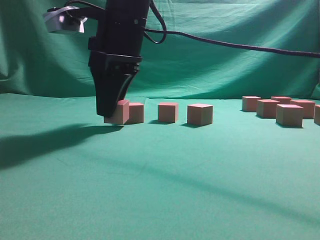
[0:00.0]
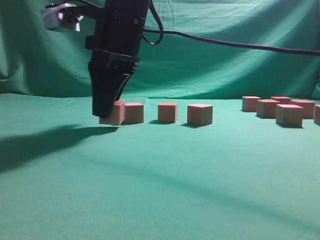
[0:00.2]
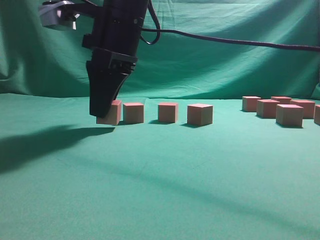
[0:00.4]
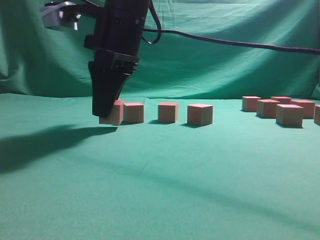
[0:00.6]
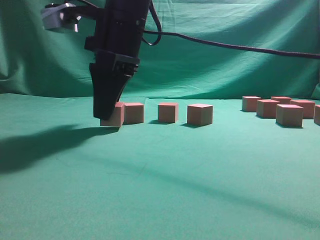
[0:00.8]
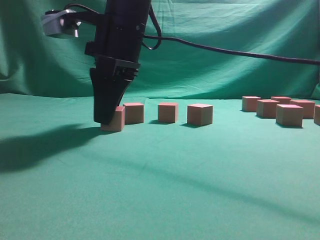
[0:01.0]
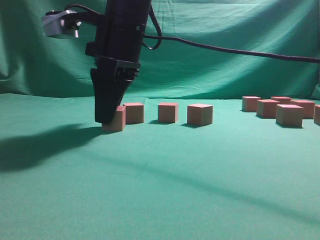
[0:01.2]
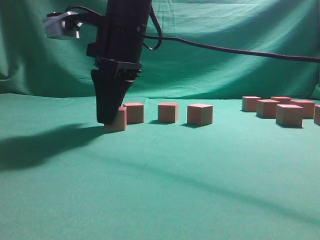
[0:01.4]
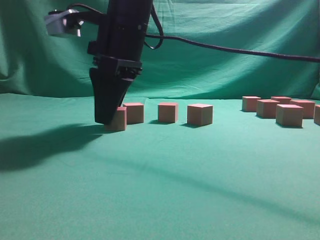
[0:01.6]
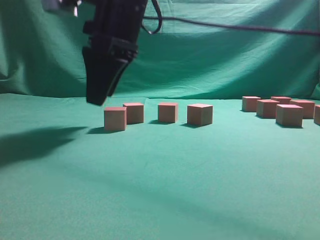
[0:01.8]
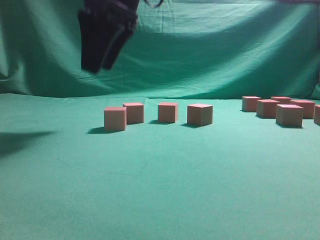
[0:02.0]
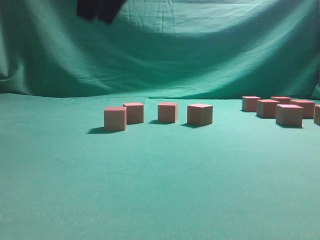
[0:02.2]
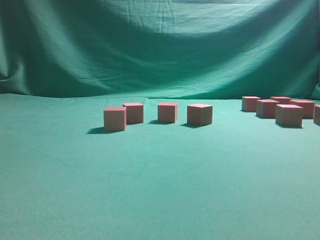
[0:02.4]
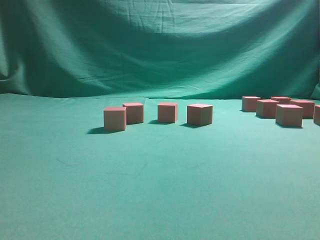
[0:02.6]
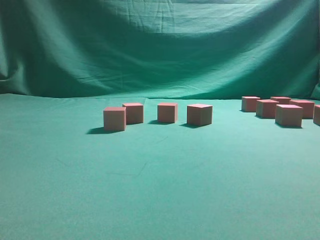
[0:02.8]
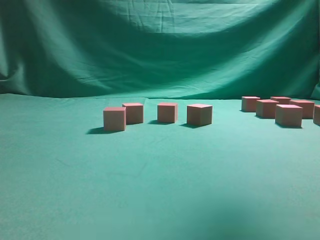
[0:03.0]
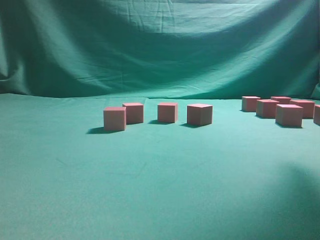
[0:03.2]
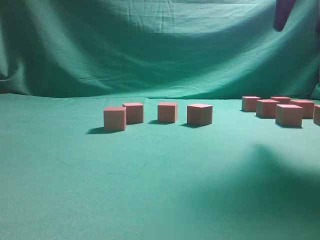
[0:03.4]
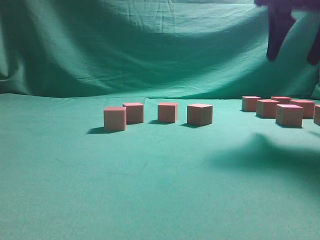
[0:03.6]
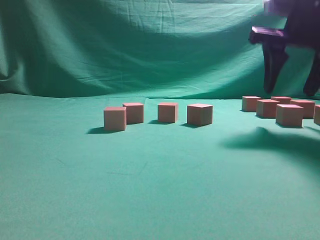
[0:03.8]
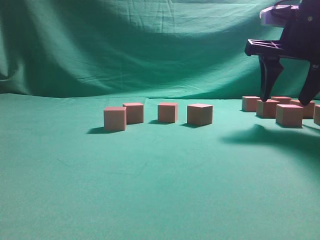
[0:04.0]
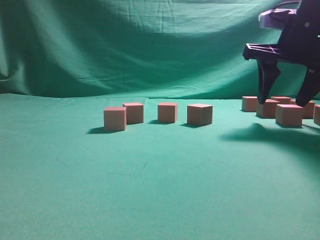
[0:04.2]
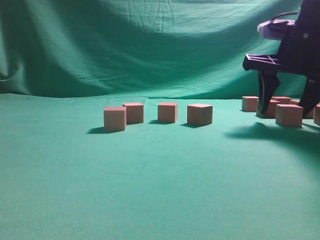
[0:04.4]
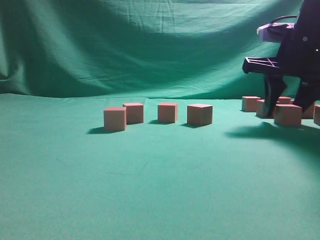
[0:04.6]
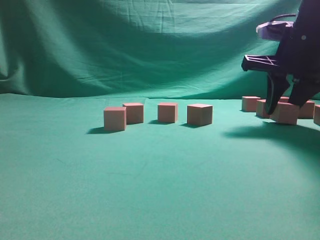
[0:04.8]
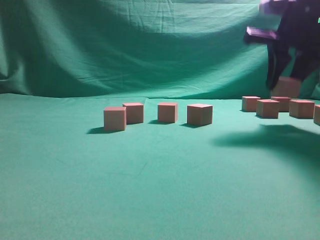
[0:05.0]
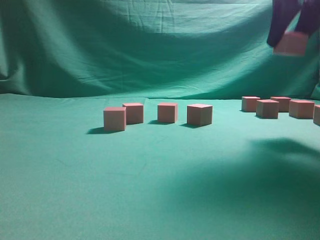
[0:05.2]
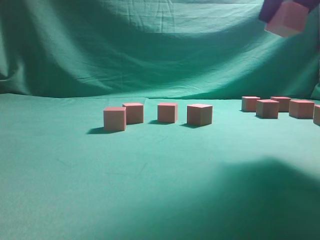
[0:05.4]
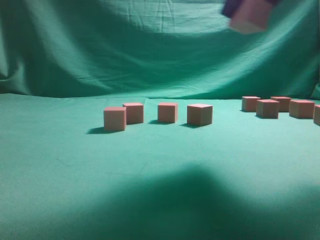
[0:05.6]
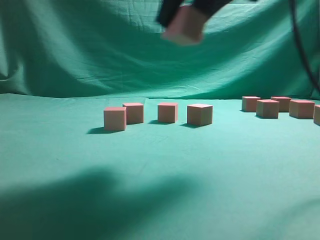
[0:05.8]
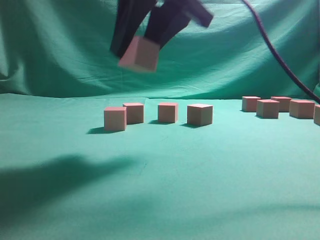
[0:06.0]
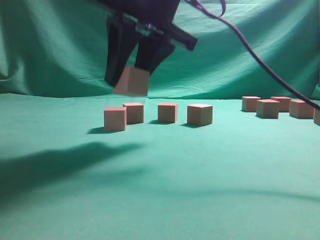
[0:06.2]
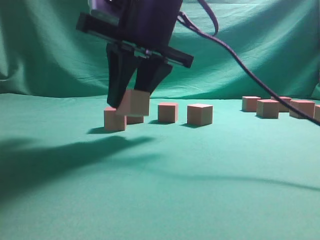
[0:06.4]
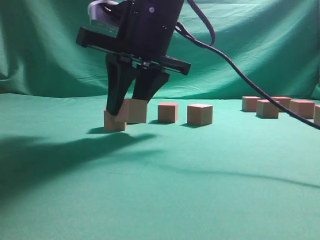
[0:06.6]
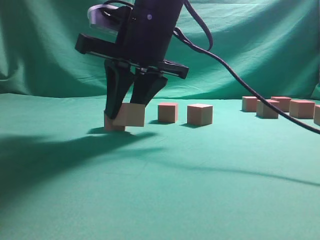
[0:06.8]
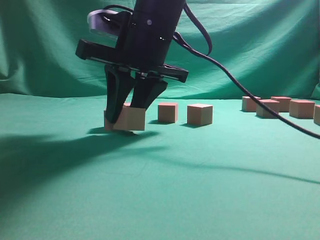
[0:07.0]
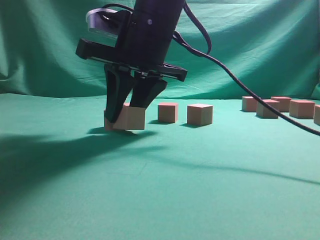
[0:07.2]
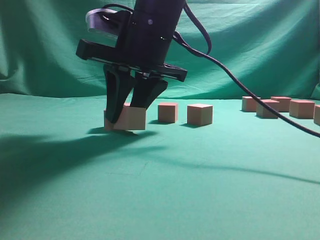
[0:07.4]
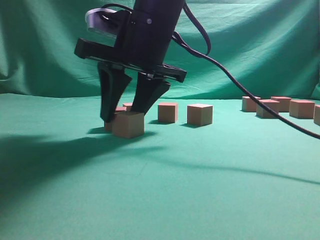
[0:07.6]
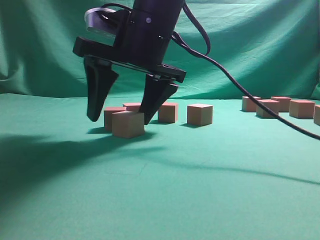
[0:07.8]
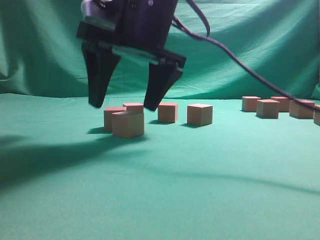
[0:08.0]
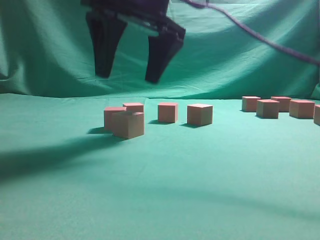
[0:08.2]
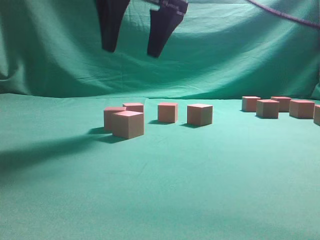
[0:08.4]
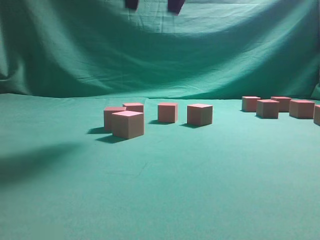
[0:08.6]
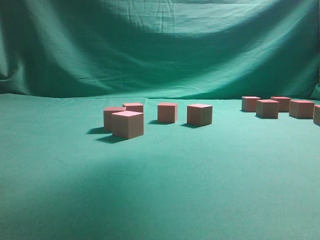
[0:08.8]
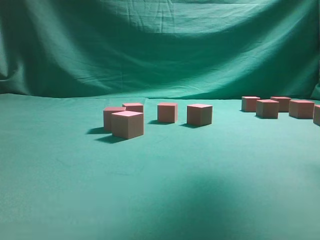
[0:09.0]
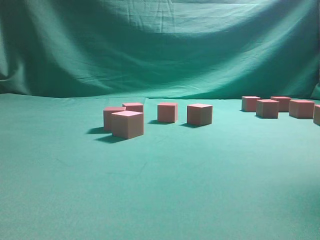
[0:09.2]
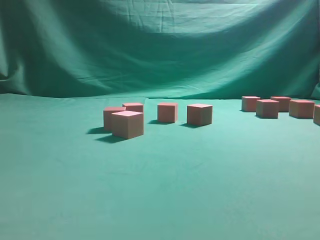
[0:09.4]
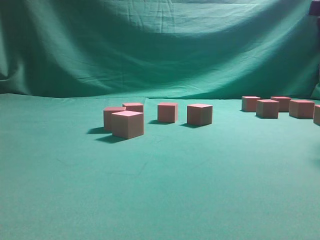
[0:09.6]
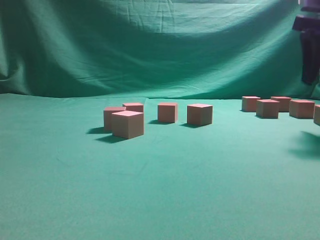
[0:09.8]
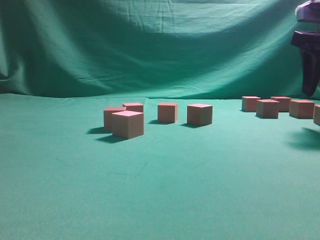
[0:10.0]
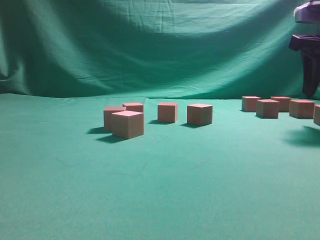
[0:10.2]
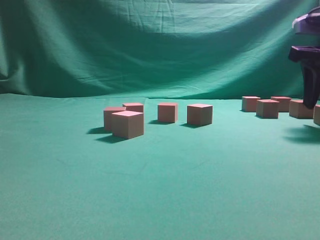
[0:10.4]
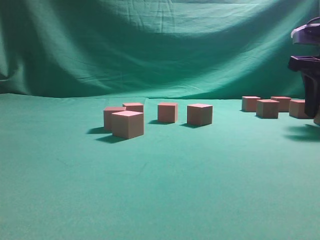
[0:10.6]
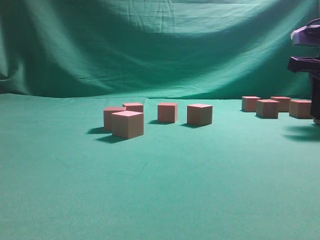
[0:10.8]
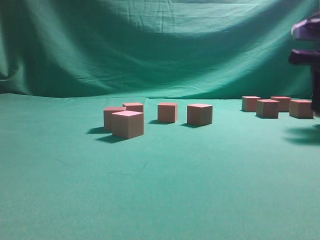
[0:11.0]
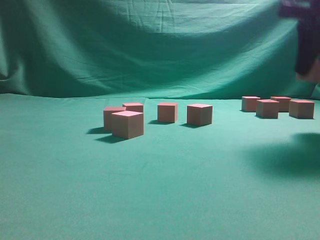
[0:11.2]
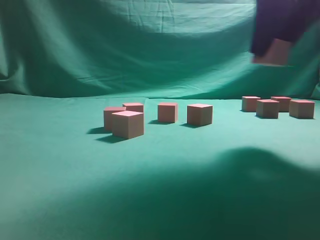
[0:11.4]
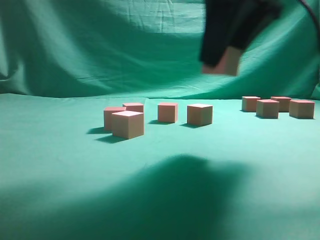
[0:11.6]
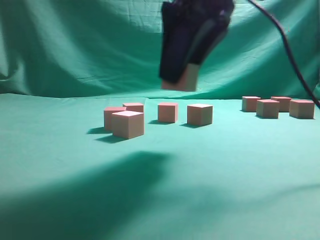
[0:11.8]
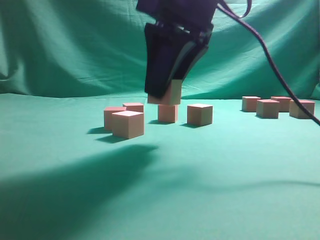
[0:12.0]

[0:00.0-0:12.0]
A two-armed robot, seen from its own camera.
Task of the whole recording: pick up the multiple cubes in two columns one by one and place them in another position on the table.
Step, 0.0 to 2.2 s: Place the block at the correct position to assemble the letter S.
Step, 2.4 to 4.8 s: Pick up the block on the table.
Step, 5.2 to 8.4 s: Place the block at the correct position to assemble the letter S.
Step, 8.6 to 11.2 s: Pick up the block on the table.
0.0 to 1.6 s: There are only small adjustments of the grippers.
1.6 to 3.0 s: The right gripper heads upward and to the right, covering roughly 30 cm.
3.0 to 4.4 s: The right gripper travels downward by about 25 cm.
4.4 to 6.0 s: The right gripper goes about 20 cm to the left, backward and upward, and closes its fingers.
6.0 to 7.6 s: The right gripper moves downward, about 5 cm.
7.6 to 9.0 s: The right gripper travels upward and to the right by about 30 cm, and opens up.
9.0 to 10.4 s: The right gripper shifts approximately 20 cm downward and to the right.
10.4 to 12.0 s: The right gripper is displaced to the left by some 25 cm, and closes.

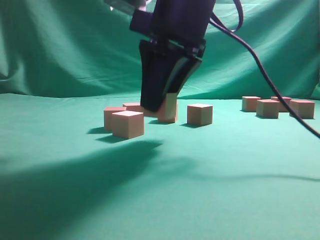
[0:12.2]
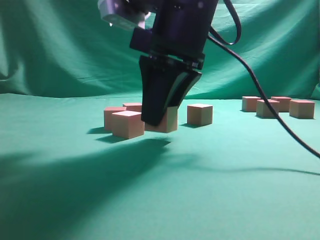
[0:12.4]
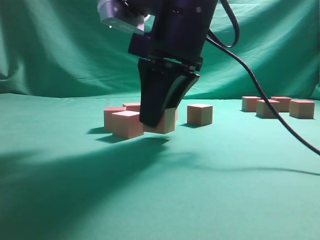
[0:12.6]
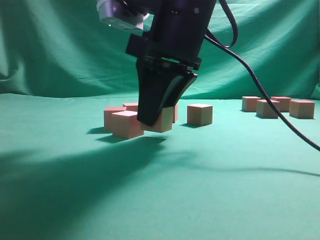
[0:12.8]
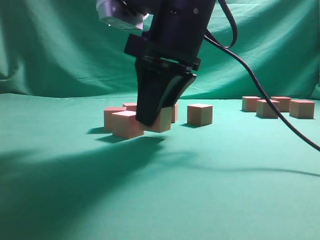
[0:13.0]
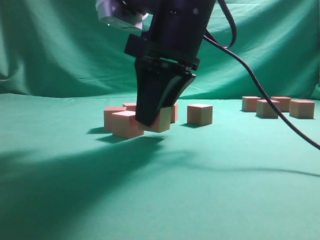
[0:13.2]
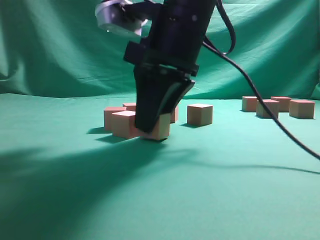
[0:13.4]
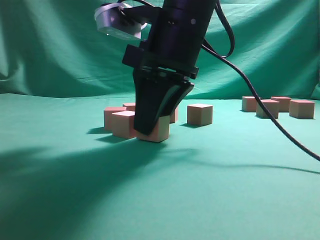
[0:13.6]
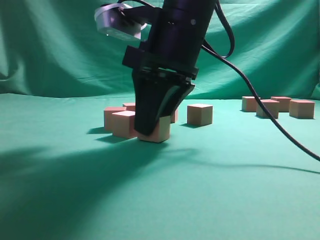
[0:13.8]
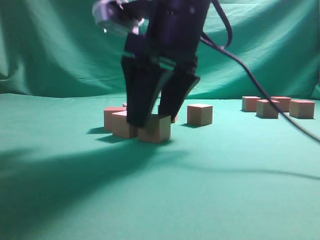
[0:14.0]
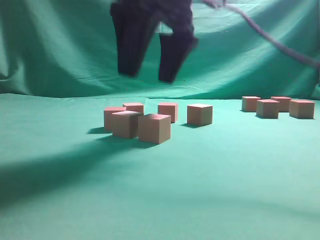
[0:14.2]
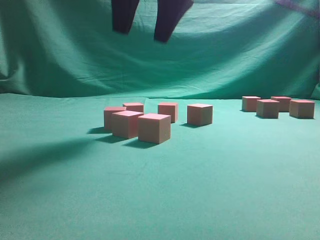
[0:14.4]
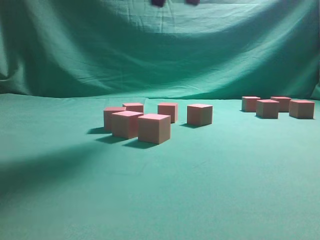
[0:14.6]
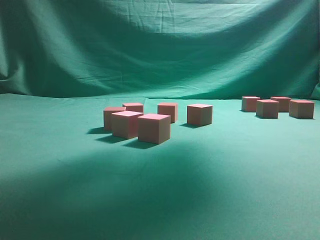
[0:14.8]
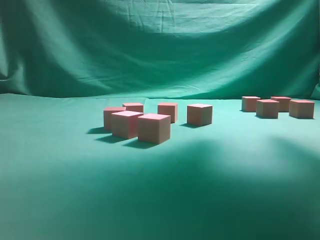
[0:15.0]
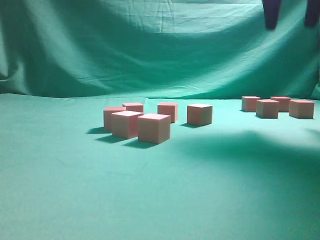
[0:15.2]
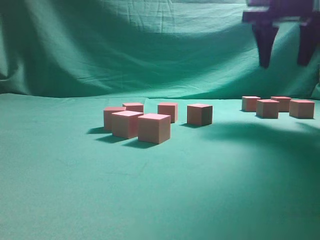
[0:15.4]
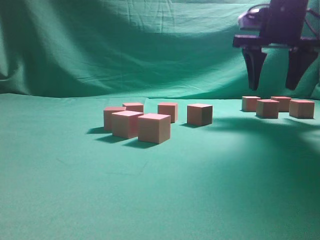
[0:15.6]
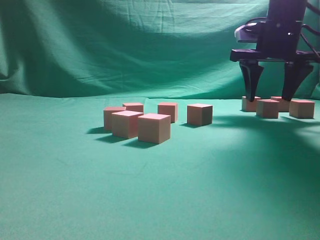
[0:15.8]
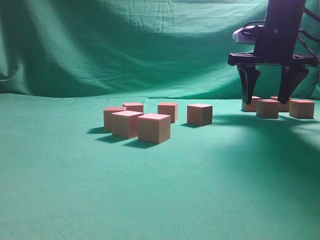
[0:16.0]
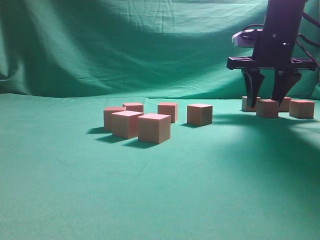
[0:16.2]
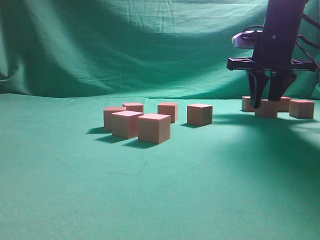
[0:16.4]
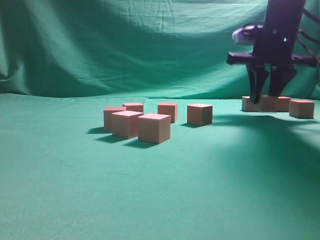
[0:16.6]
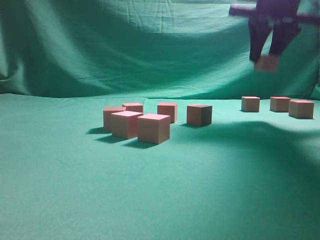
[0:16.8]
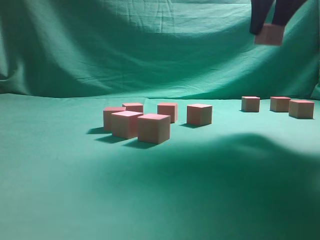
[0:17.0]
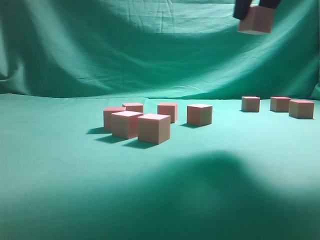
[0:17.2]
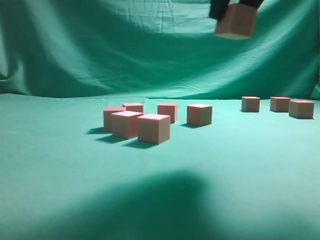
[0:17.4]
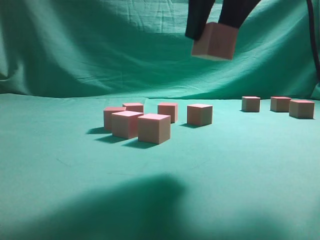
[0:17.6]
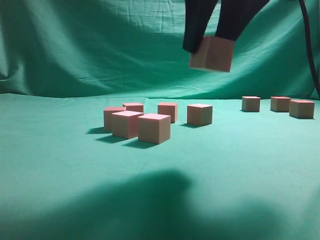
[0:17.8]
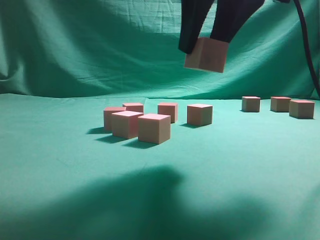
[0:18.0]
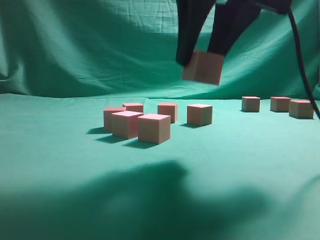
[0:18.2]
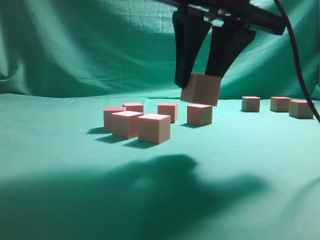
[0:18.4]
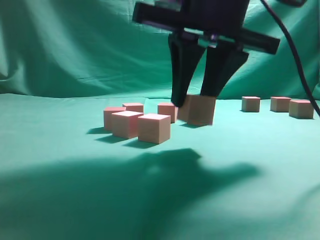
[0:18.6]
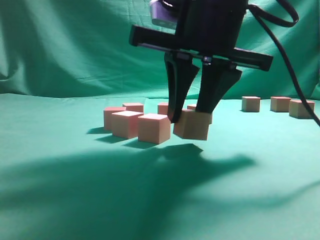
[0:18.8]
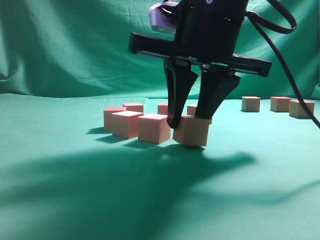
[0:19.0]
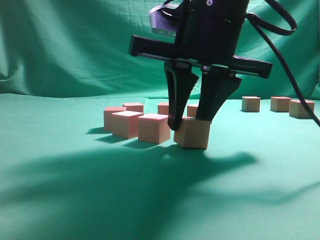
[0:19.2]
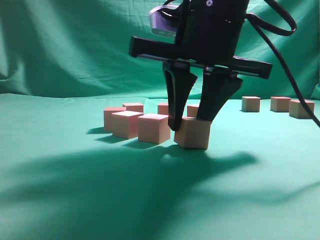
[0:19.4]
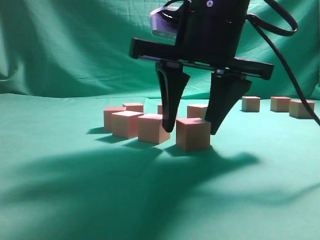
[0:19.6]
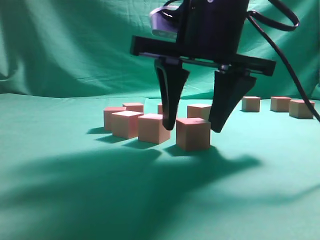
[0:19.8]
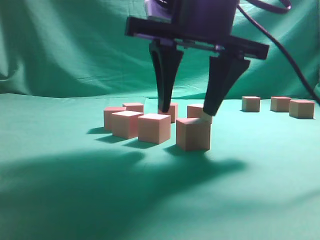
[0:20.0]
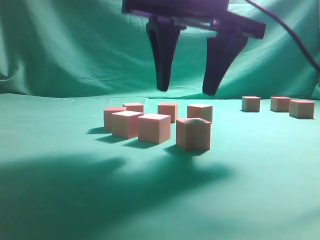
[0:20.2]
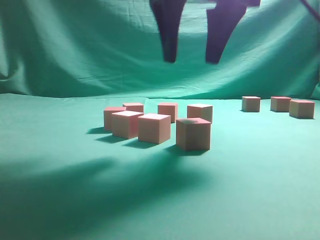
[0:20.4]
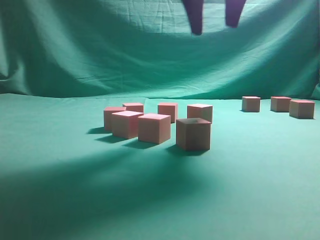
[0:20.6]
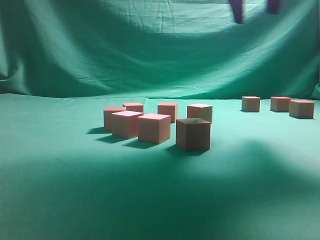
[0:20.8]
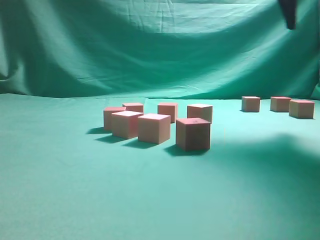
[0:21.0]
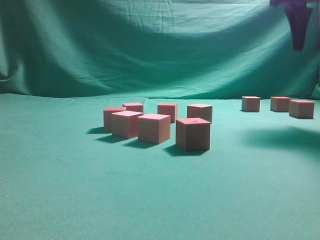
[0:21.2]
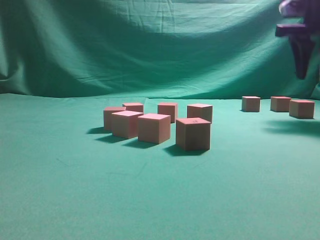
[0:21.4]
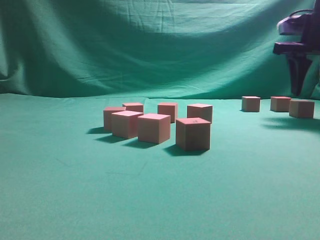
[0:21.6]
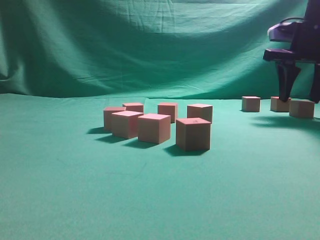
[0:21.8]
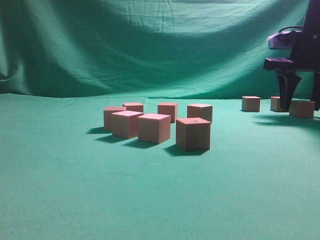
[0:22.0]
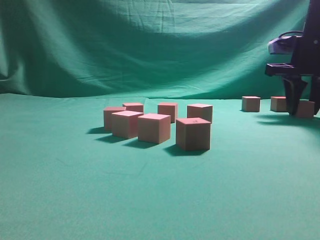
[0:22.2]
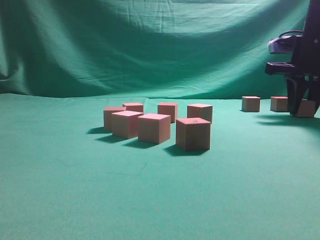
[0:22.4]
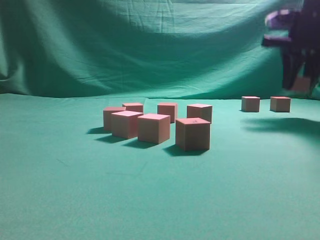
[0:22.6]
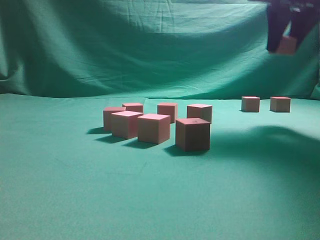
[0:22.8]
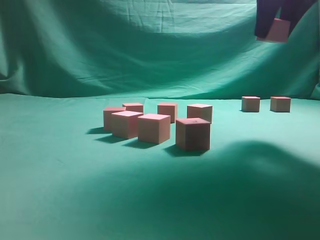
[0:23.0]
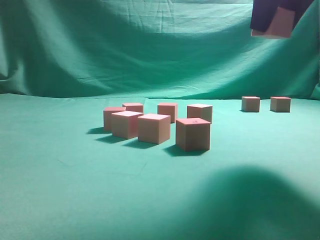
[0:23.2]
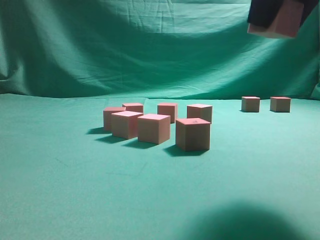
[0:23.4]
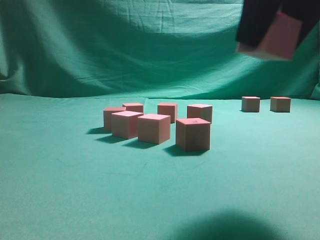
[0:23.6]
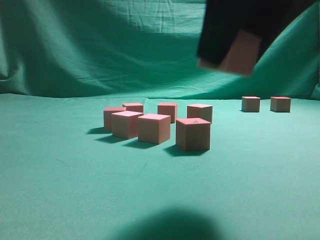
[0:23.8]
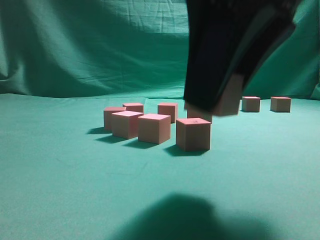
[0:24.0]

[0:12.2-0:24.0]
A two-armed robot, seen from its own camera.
Task of the whole recording: pick up the multiple cubes in two columns one by one and place them in another position on the table.
Step, 12.2 to 14.4 s: Place the block at the correct position to assemble the letter S.
Step, 14.6 to 16.6 s: Pick up the block on the table.
Step, 16.8 to 20.6 s: Place the block at the correct position to assemble the letter S.
Step, 20.8 to 22.6 s: Pick up the block on the table.
12.2 to 13.6 s: The grippers move only a little.
13.6 to 15.2 s: The right gripper travels to the right, upward and forward by roughly 25 cm, and opens.
15.2 to 16.6 s: The right gripper travels downward and forward by roughly 15 cm, and closes up.
16.6 to 18.2 s: The right gripper is displaced backward and to the left by some 25 cm.
18.2 to 19.6 s: The right gripper moves downward, some 5 cm.
19.6 to 21.0 s: The right gripper heads to the right, upward and forward, covering about 25 cm.
21.0 to 22.6 s: The right gripper goes roughly 15 cm downward, forward and to the right.
22.6 to 24.0 s: The right gripper is displaced backward and to the left by roughly 30 cm.
